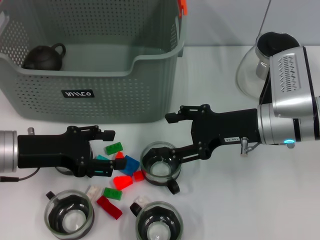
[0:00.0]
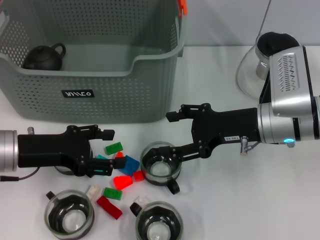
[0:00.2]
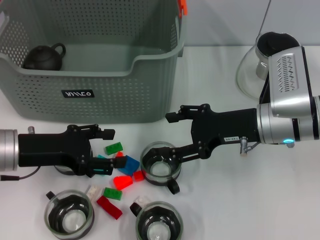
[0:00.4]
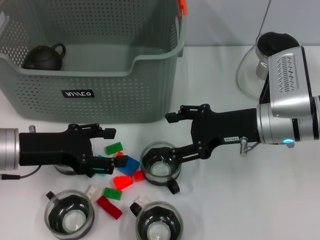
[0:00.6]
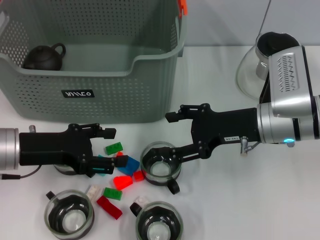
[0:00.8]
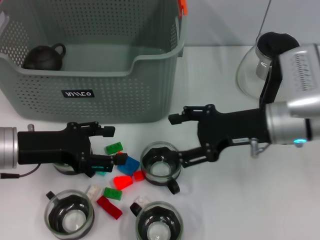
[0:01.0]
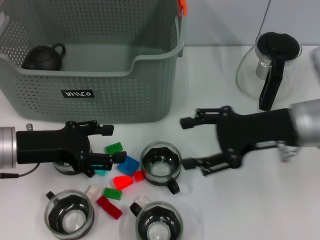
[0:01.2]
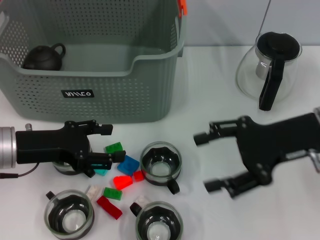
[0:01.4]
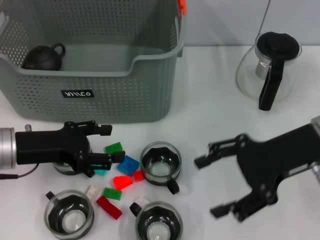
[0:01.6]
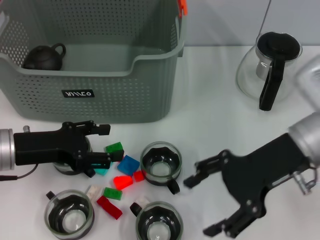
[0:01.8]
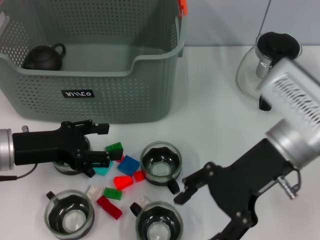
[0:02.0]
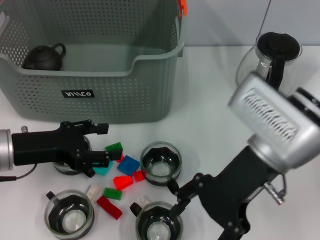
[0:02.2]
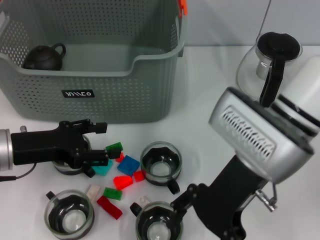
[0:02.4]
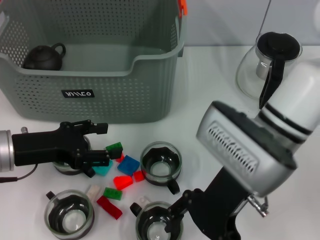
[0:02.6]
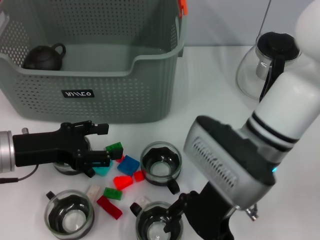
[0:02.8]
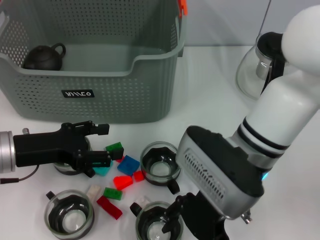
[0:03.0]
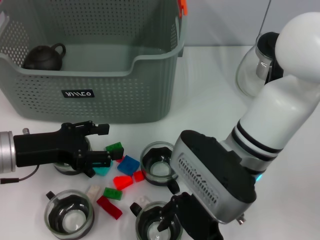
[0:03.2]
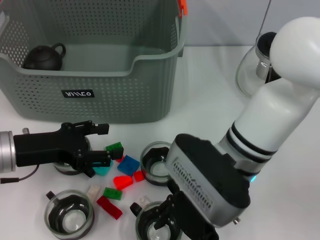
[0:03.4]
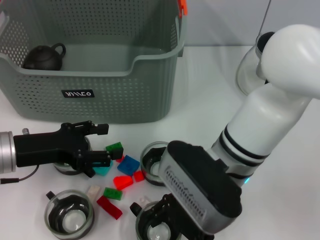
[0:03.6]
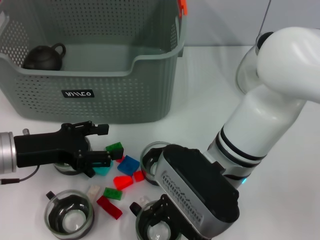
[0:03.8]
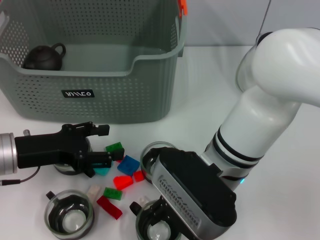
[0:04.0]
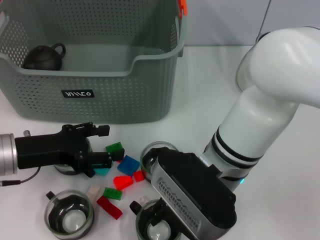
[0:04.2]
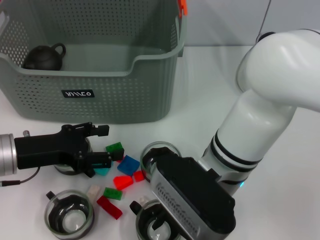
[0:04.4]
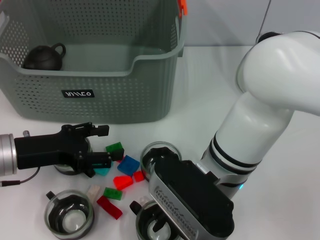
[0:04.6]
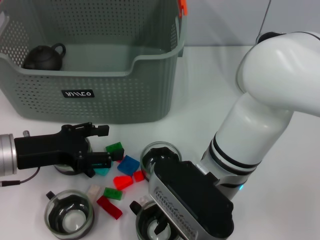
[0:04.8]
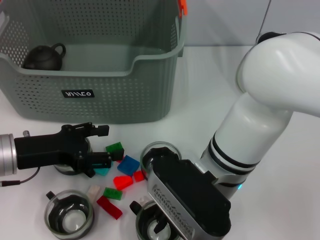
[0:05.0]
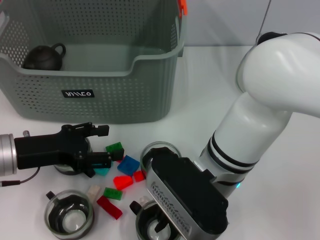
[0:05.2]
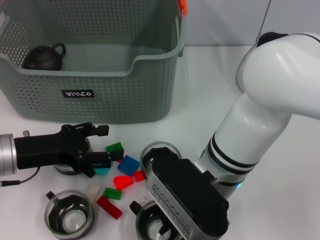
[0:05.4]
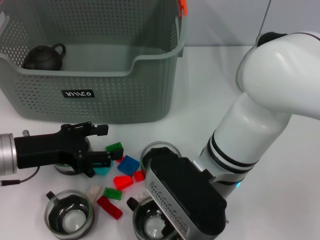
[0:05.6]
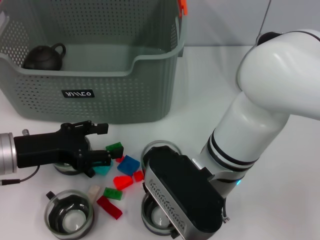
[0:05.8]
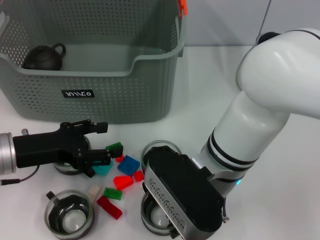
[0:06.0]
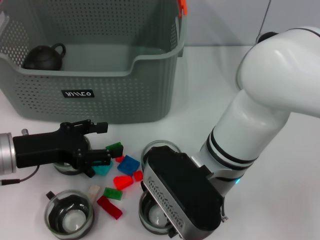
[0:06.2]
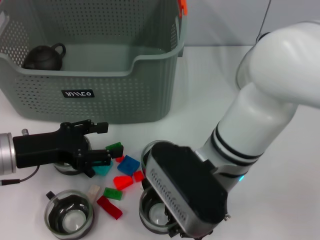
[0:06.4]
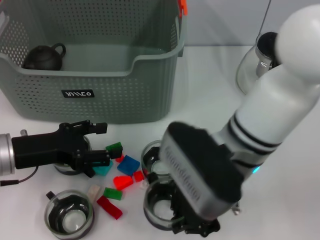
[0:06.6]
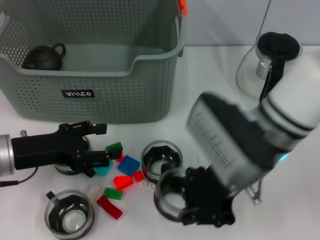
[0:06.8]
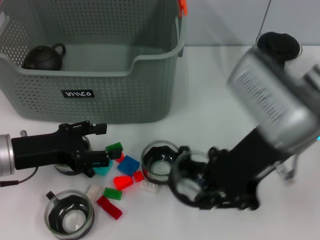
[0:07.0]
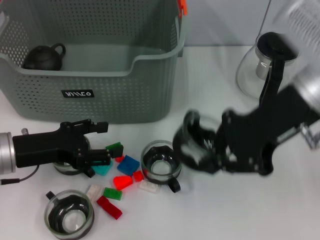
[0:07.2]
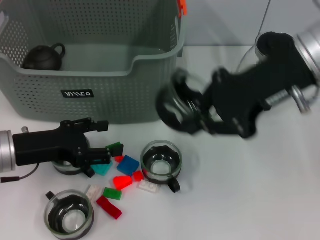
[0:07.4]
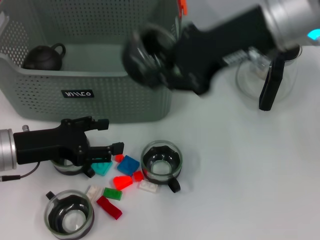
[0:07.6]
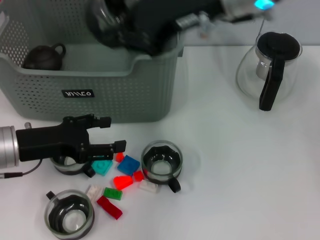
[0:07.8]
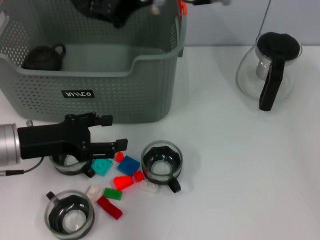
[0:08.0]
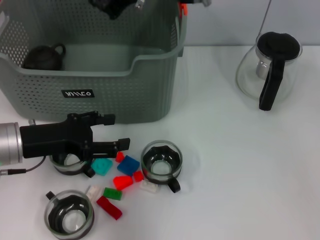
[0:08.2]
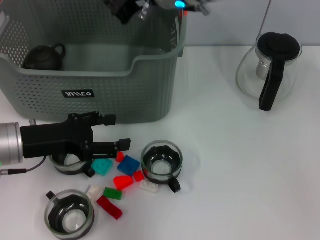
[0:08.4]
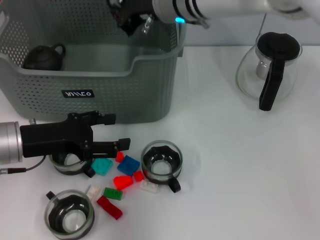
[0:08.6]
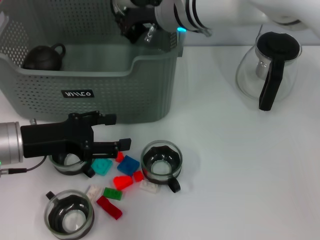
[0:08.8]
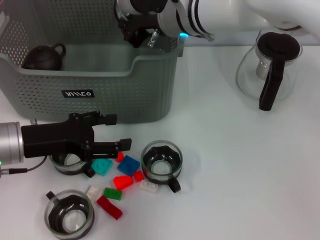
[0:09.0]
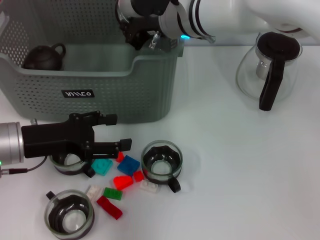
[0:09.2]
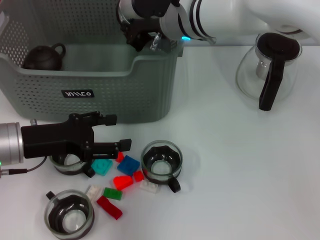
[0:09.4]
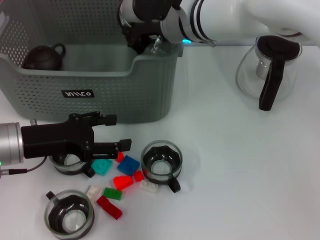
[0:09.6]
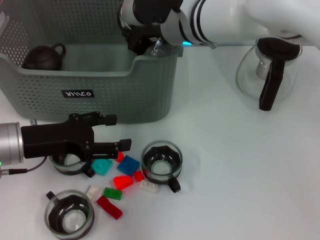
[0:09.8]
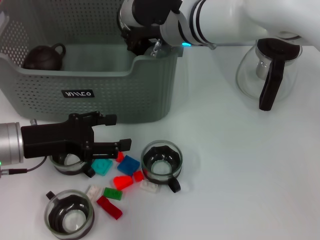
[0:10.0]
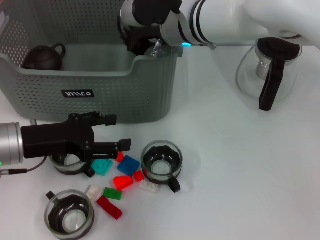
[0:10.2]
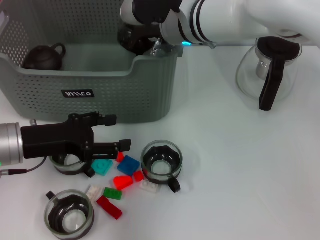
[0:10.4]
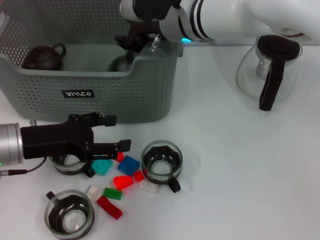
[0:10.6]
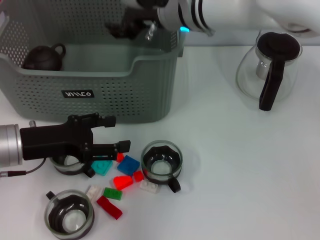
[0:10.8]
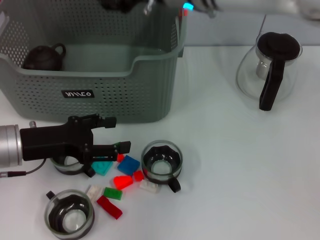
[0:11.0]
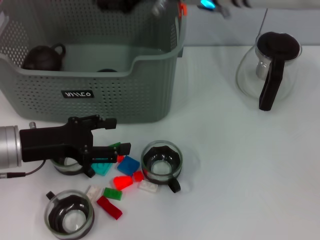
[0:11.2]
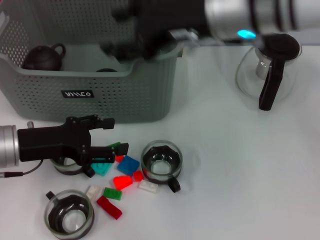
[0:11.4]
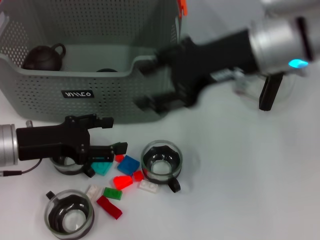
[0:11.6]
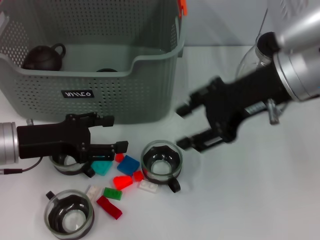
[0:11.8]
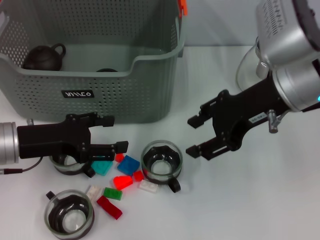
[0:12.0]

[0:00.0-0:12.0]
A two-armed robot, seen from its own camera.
Task of the whole recording: pick up the teacup on the table and place it into the storage bin, pick up the block on the table and place it into the storage bin.
Step, 0:00.0 to 0:06.0: Grasp the cup with right gripper.
Step, 0:06.2 to 0:10.6: Place the cup in the storage box with right gripper.
0:00.0 to 0:01.6: The right gripper moves upward, about 5 cm.
0:01.6 to 0:03.0: The right gripper shifts about 15 cm to the left.
0:04.4 to 0:06.0: The right gripper closes its fingers.
0:06.0 to 0:07.6: The right gripper is displaced upward, to the right and forward by some 20 cm.
0:07.6 to 0:09.0: The right gripper moves to the left, forward and downward, approximately 15 cm.
0:09.0 to 0:10.4: Neither gripper changes place.
0:10.4 to 0:12.0: The right gripper shifts roughly 15 cm to the right and backward, and opens.

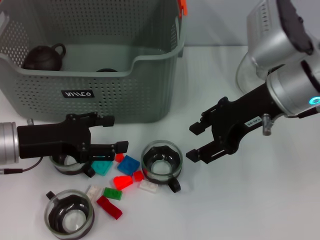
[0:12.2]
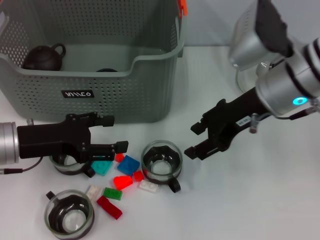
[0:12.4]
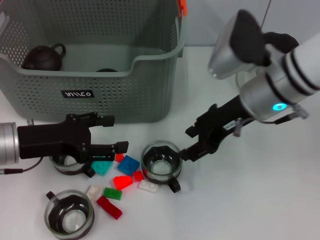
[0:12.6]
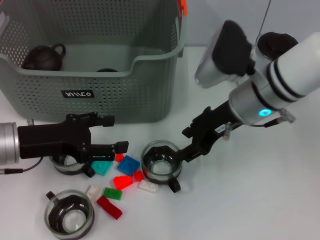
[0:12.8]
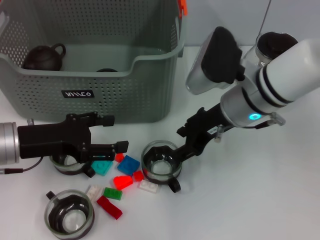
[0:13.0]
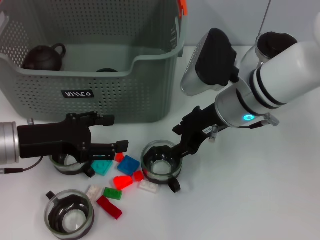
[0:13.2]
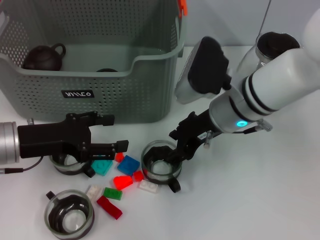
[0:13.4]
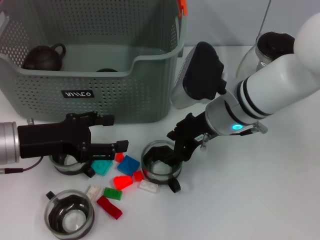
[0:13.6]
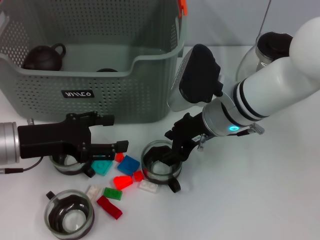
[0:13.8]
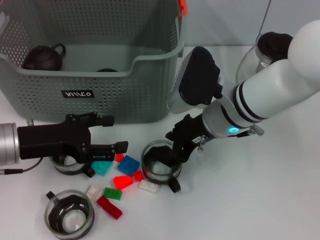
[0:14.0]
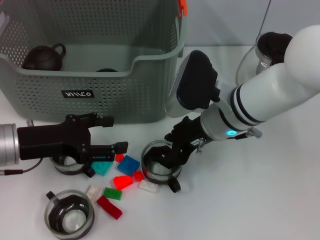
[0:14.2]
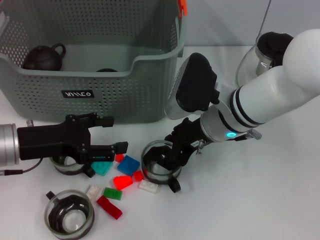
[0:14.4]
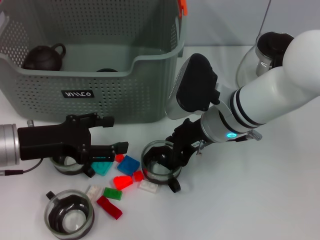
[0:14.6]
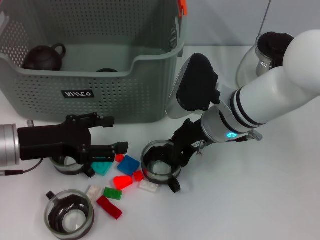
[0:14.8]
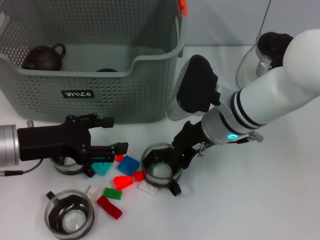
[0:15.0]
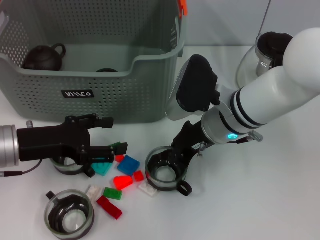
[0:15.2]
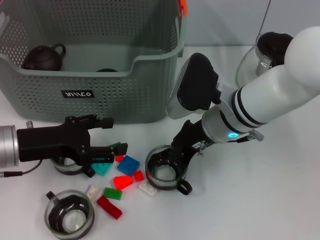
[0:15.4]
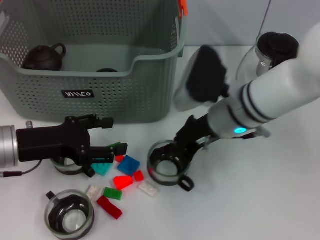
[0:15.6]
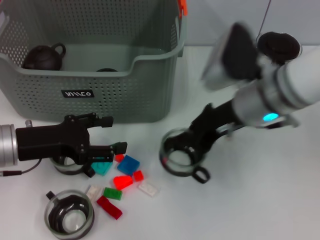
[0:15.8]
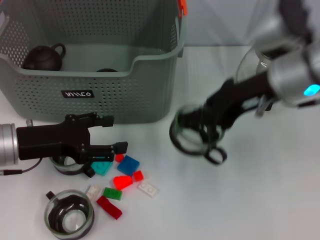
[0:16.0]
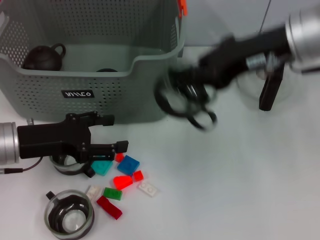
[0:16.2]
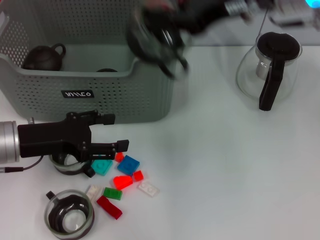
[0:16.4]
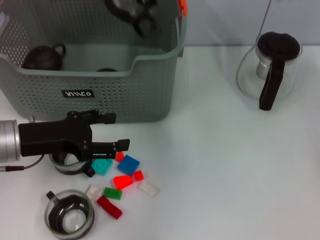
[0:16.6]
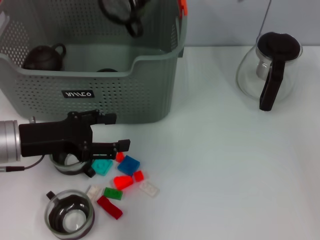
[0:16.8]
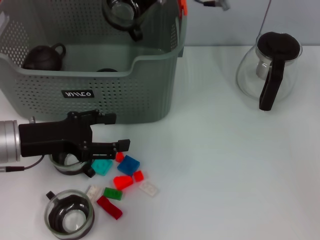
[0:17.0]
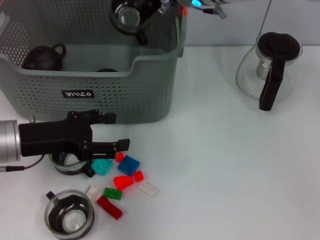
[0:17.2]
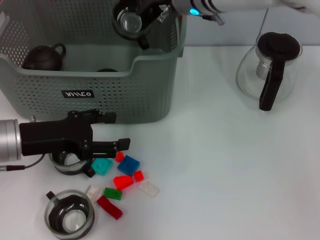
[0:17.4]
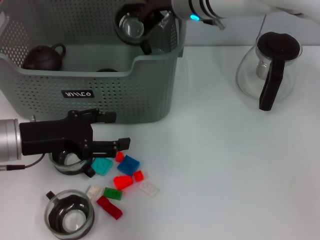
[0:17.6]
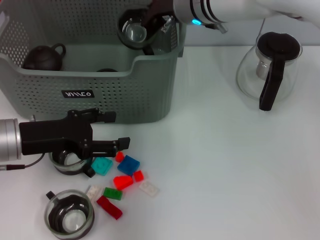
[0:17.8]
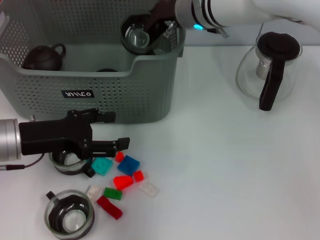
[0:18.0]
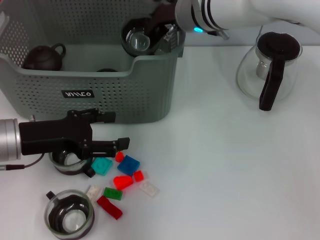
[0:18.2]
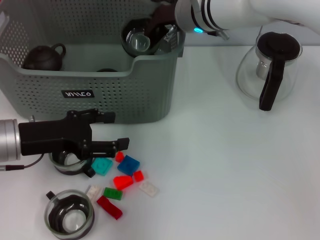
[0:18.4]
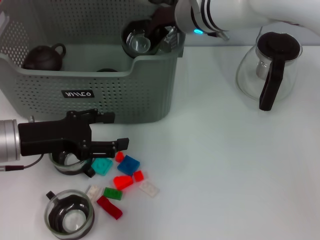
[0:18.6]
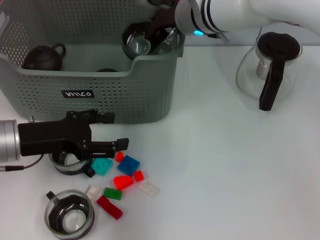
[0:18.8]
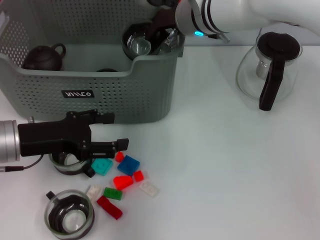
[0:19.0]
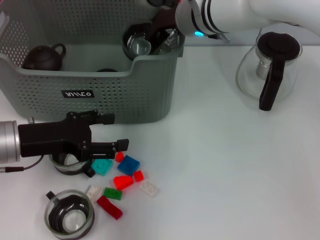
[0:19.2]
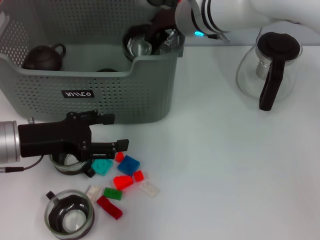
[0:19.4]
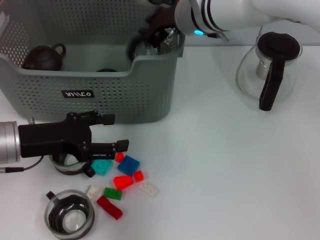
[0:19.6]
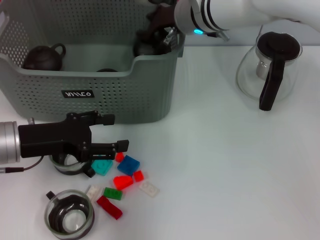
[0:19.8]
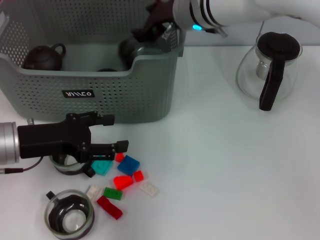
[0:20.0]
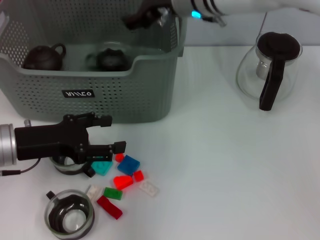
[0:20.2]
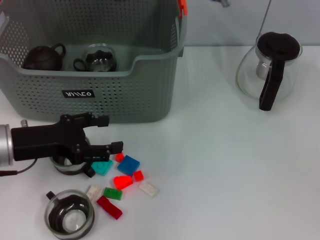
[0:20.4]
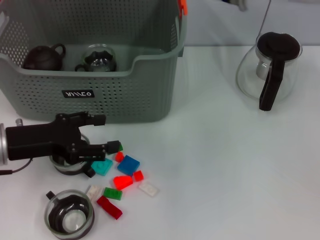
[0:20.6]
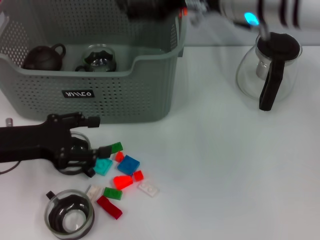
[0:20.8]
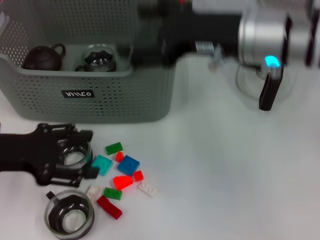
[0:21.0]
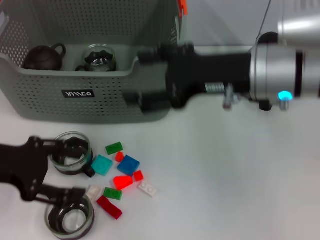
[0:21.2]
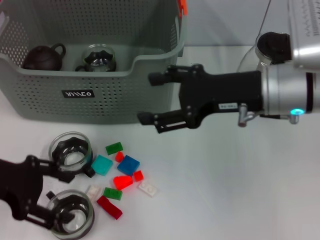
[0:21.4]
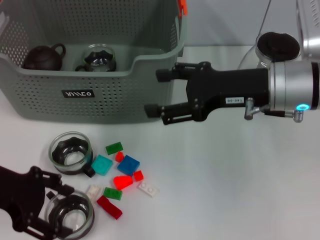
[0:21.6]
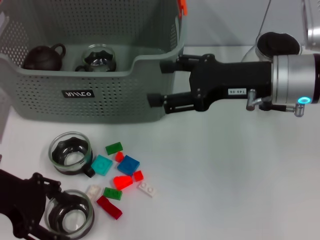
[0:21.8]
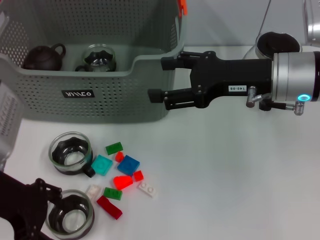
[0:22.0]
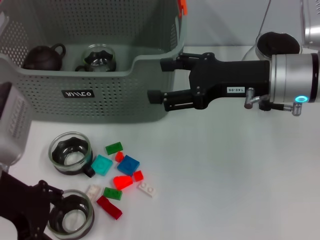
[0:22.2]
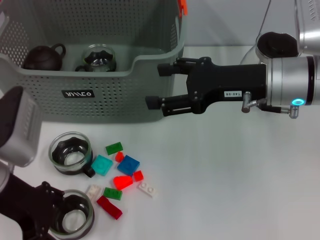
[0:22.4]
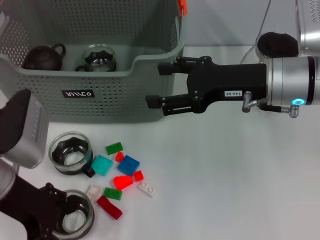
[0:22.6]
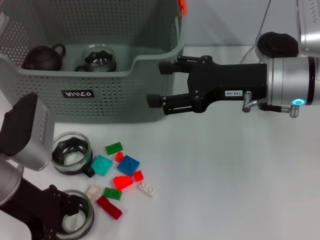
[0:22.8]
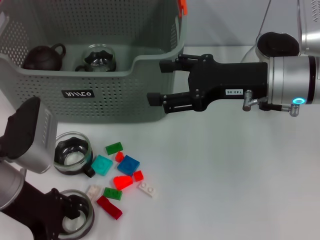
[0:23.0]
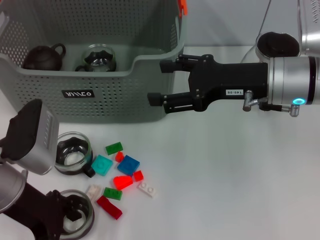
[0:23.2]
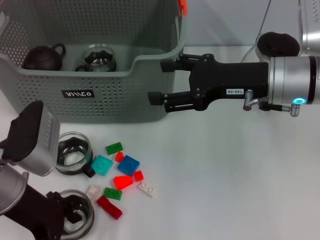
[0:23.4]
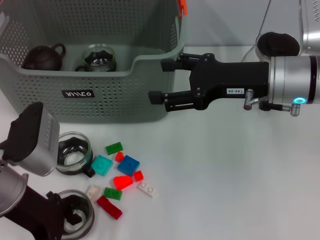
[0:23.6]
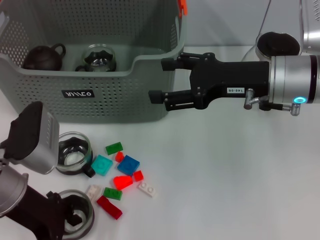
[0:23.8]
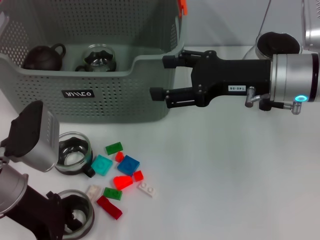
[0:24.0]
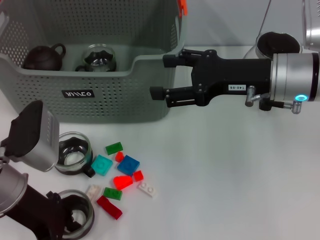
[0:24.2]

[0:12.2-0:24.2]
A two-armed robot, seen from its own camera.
Task of the whole recording: pick up the teacup on the table and place it into the storage bin, pick up the block on the table and place it into the storage bin.
Step, 0:12.2 to 0:15.2: Grasp the cup with right gripper.
Step, 0:15.6 to 0:20.2: Place the cup in the storage box with right gripper.
0:12.2 to 0:13.8: The right gripper goes about 10 cm downward and to the left.
0:13.8 to 0:15.2: The right gripper closes its fingers.
0:15.2 to 0:16.6: The right gripper travels upward by roughly 20 cm.
0:16.6 to 0:18.2: The right gripper travels downward and to the left by about 10 cm.
0:18.2 to 0:19.8: Both grippers stay about where they are.
0:19.8 to 0:21.2: The right gripper is displaced backward and to the right by roughly 15 cm, and opens; the left gripper moves some 5 cm.
0:21.2 to 0:22.6: The left gripper goes roughly 5 cm to the right.
0:22.6 to 0:24.2: The grippers move only a little.
